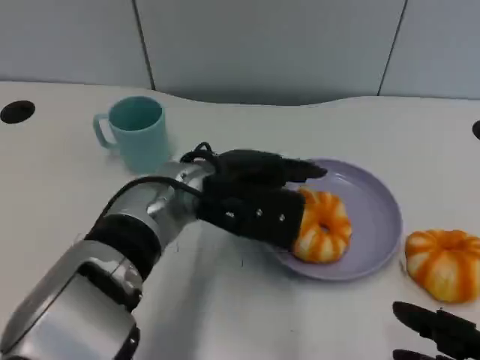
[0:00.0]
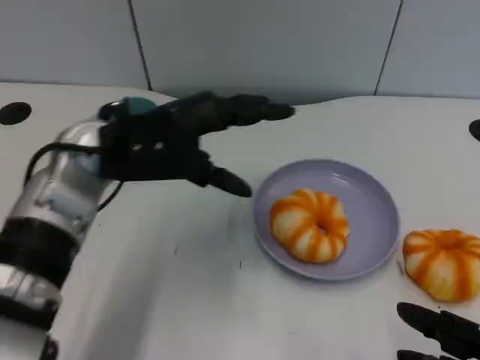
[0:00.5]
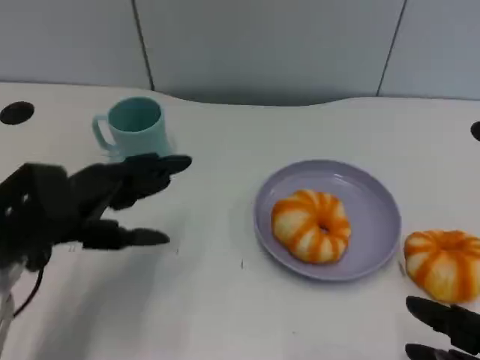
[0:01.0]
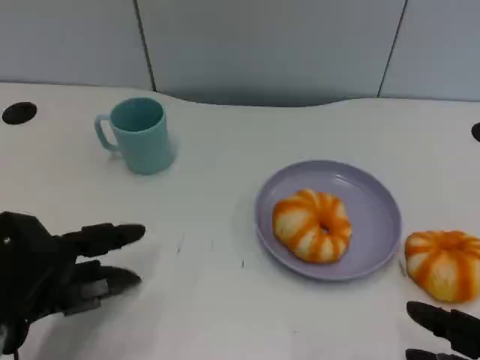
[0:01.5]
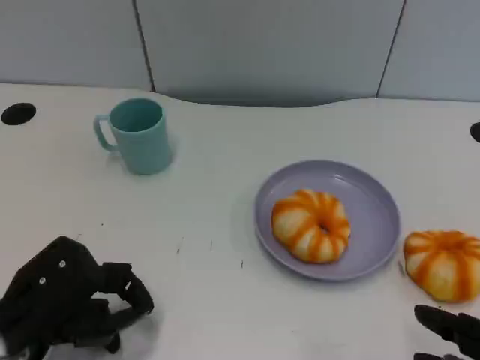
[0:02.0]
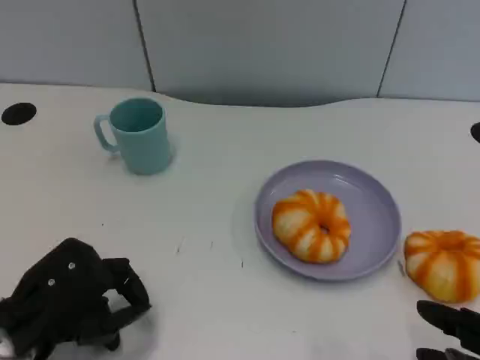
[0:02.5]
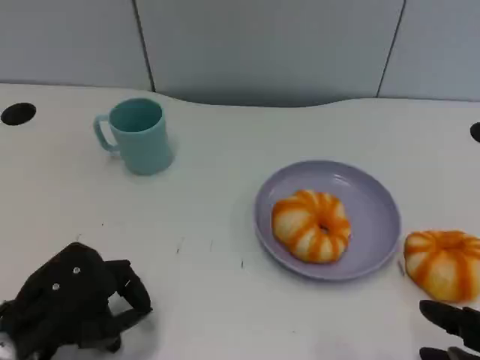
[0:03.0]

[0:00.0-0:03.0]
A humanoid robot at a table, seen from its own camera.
Task of the whole recording: Grasp the bread from the table and place it into the plate.
0:00.0 to 0:01.5: The left hand is displaced to the left and backward by some 20 cm.
0:01.5 to 0:03.0: The hands move only a little.

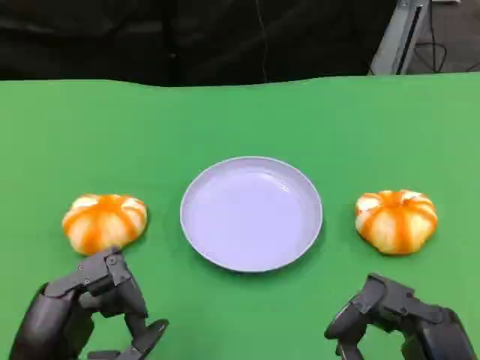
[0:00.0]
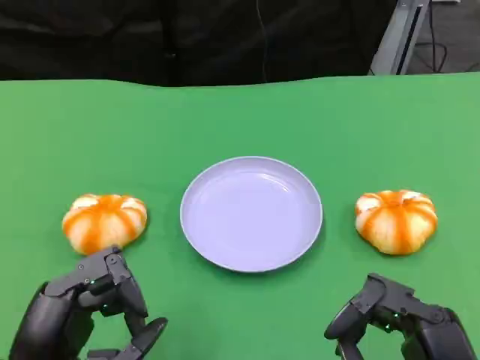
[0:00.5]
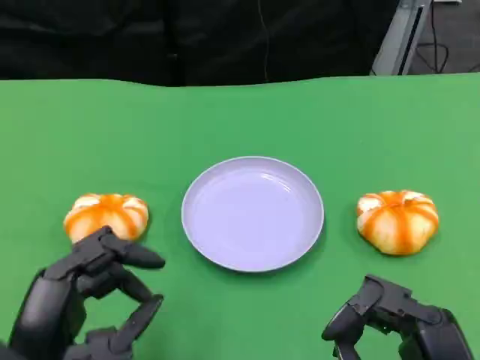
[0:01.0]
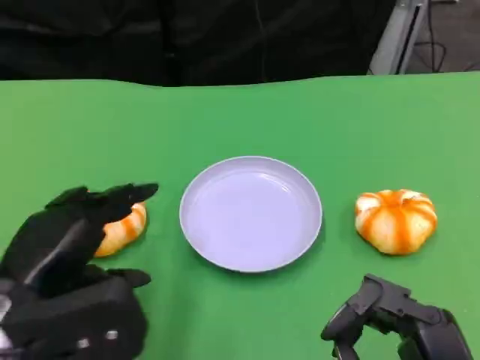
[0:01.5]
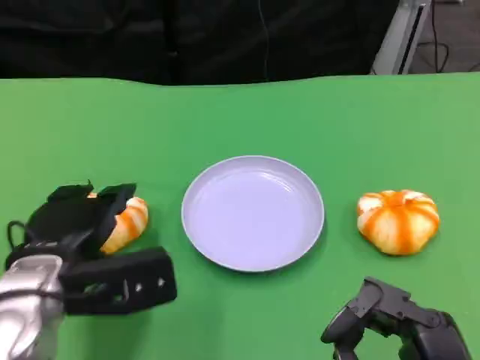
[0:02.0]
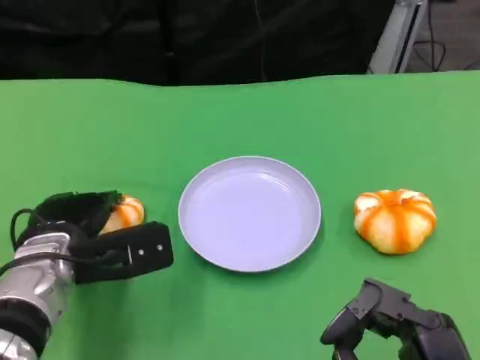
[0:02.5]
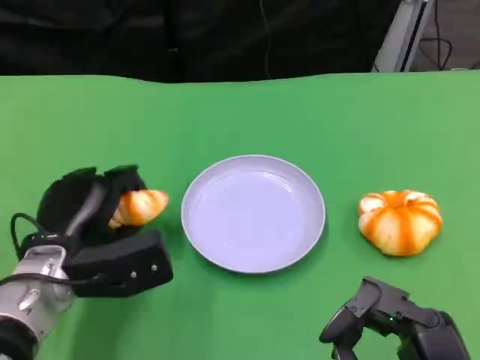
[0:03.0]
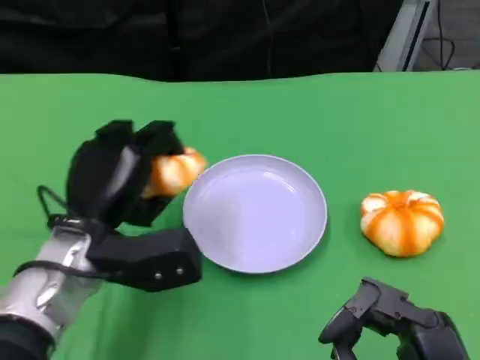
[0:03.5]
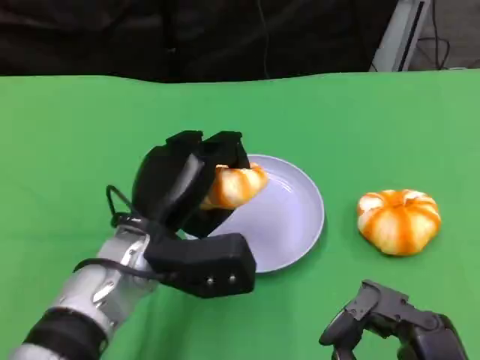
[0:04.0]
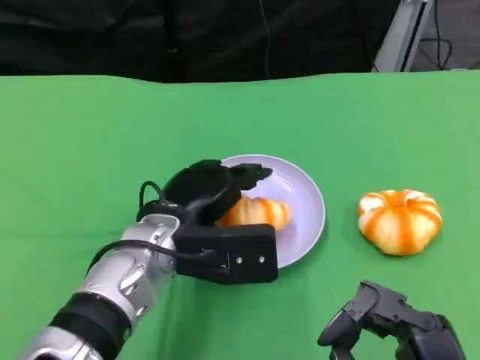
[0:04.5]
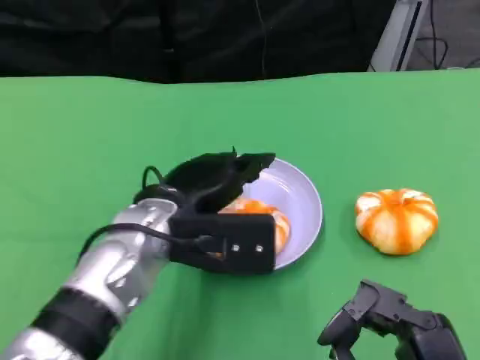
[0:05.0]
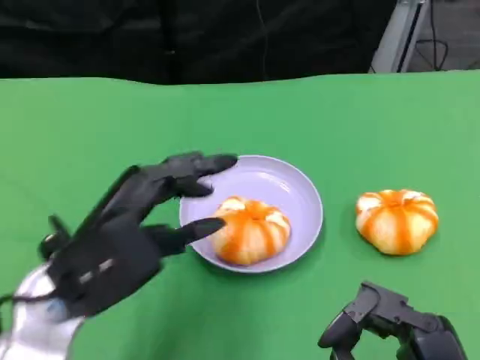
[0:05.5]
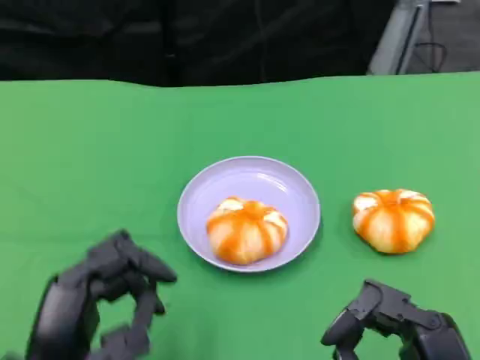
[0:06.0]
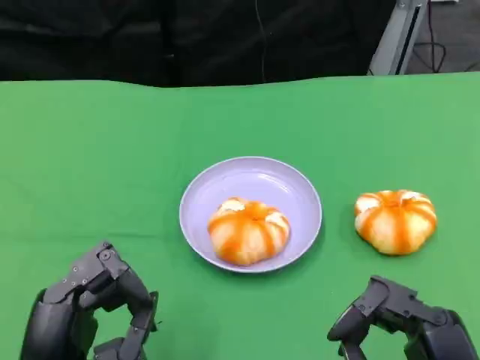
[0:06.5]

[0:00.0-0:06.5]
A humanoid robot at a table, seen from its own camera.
Task of the whole recording: Grasp the bread from the table and place it into the plate.
0:00.0 to 0:02.0: The left hand is displaced forward by about 15 cm.
0:02.0 to 0:04.5: The left hand is displaced to the right by approximately 10 cm.
0:04.5 to 0:06.5: The left hand moves backward and to the left, some 20 cm.
